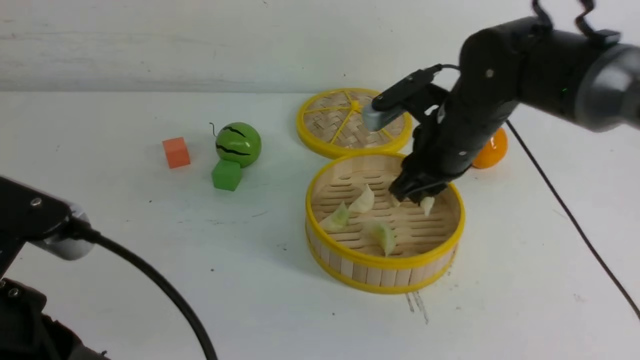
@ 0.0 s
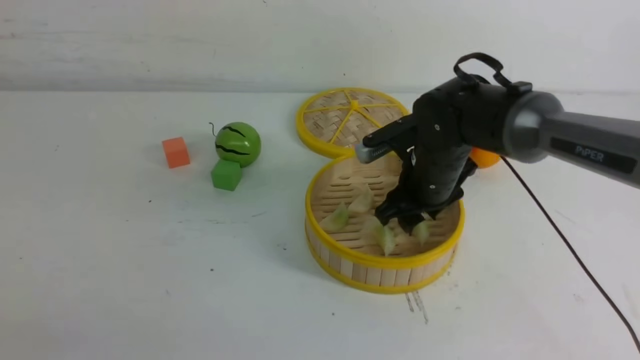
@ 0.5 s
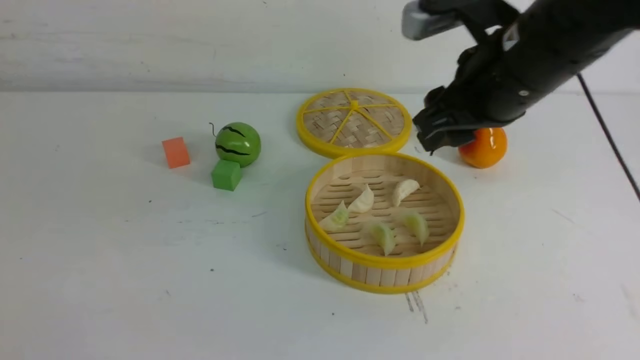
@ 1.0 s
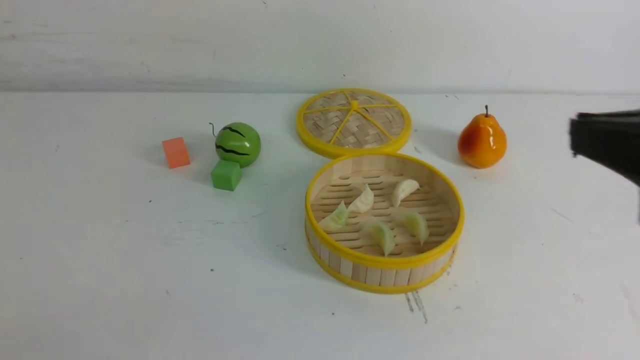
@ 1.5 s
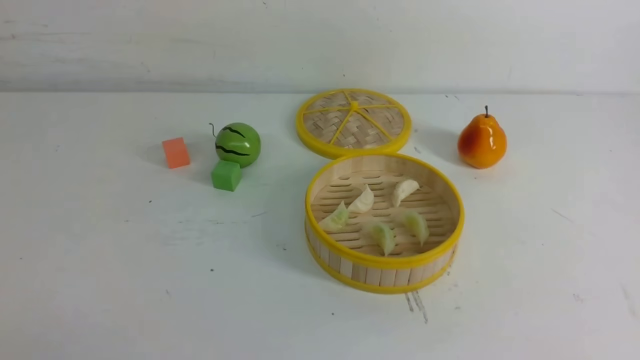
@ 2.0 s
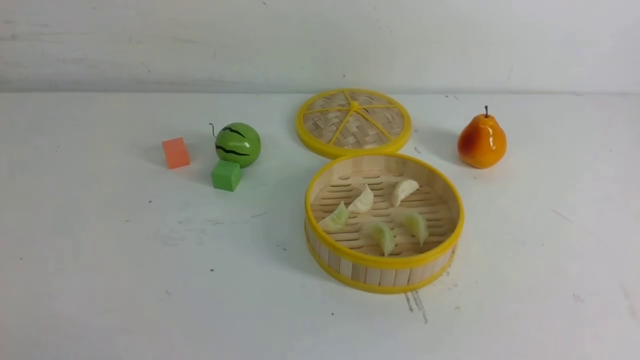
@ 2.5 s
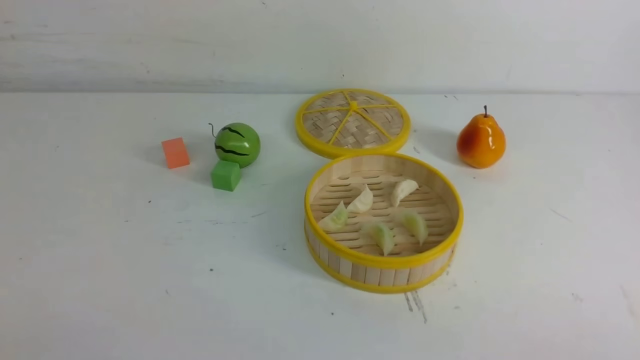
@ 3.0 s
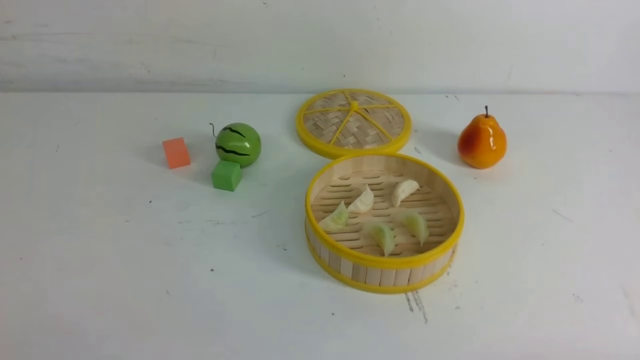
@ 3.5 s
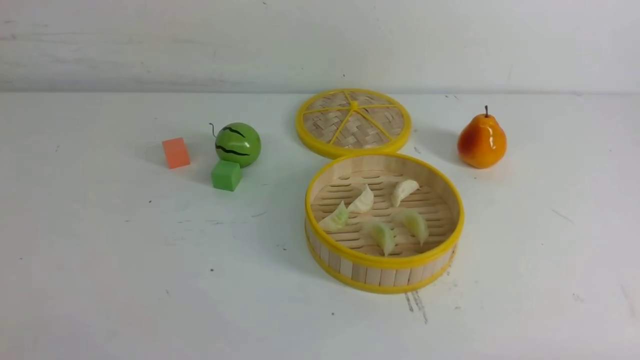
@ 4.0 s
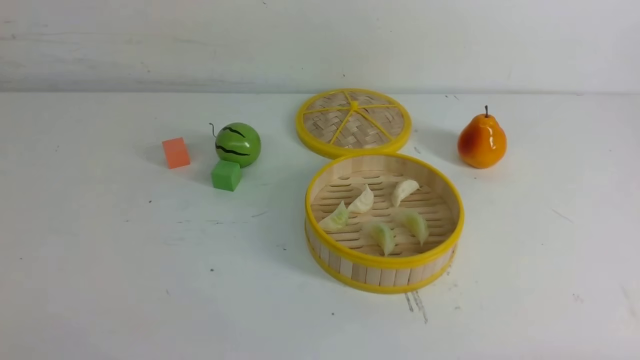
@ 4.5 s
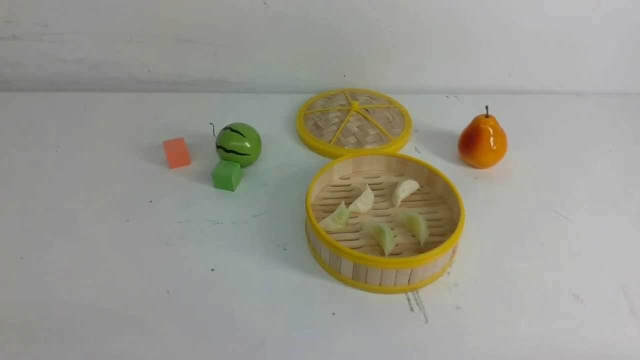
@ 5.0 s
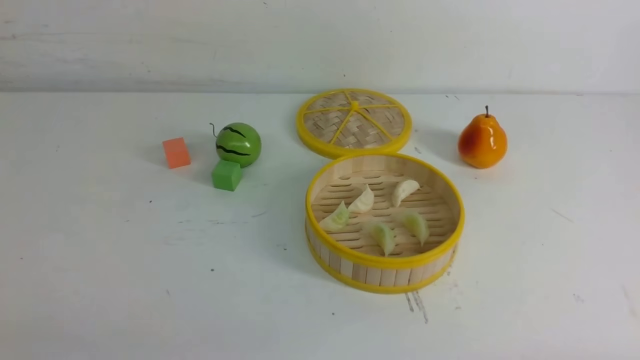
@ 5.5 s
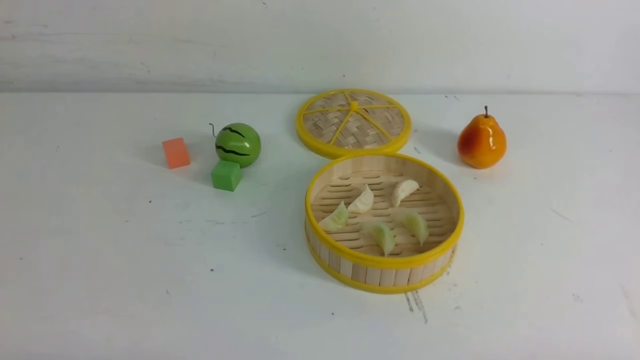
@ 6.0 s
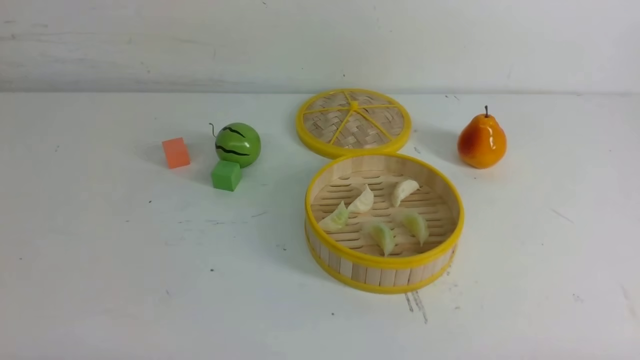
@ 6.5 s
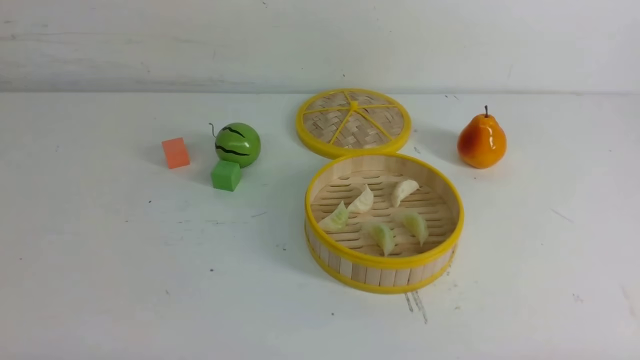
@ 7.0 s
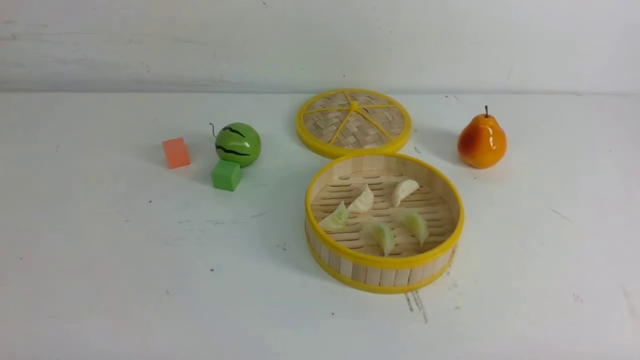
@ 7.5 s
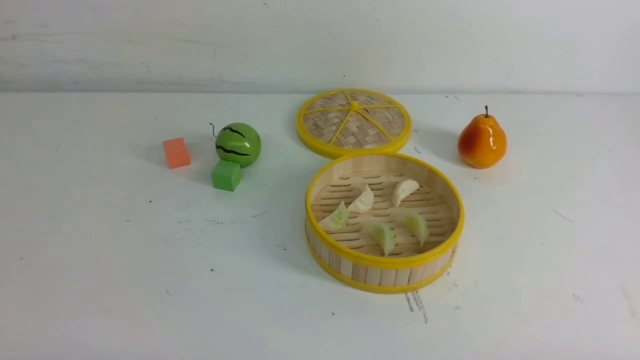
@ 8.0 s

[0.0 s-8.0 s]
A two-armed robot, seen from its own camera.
Task of the whole recording: put the dumplings into the steamer on the white table.
Step, 0.0 to 1.0 s: use the right arm to put the dumpling into the steamer.
0.0 to 2.0 s: The left gripper travels backward and to the left by about 15 cm, while the right gripper heads backward and upward, covering about 35 cm, and closes up.

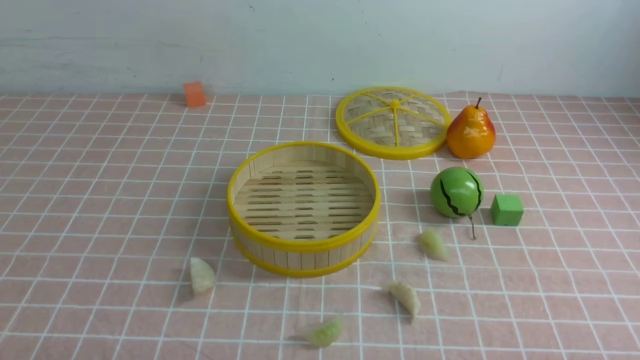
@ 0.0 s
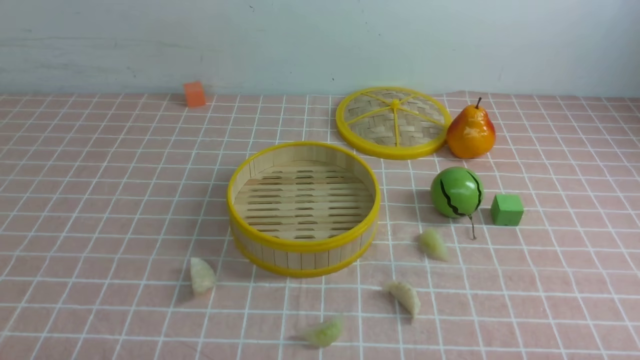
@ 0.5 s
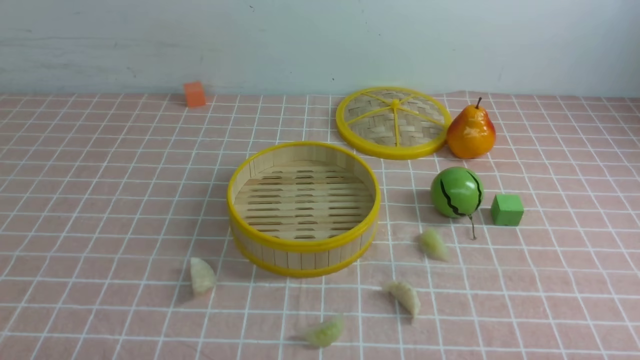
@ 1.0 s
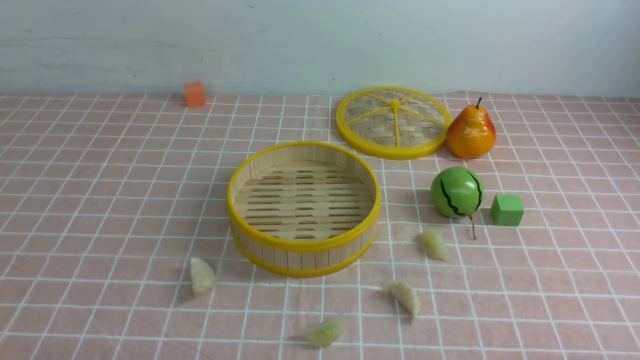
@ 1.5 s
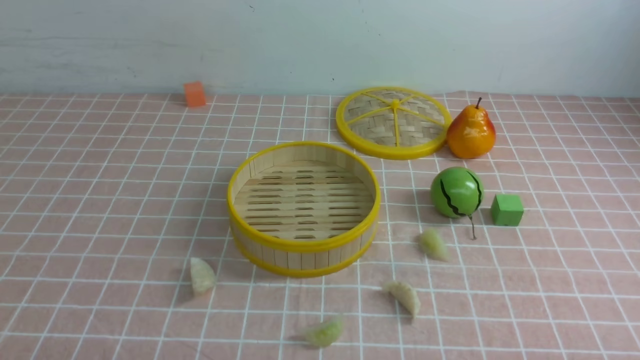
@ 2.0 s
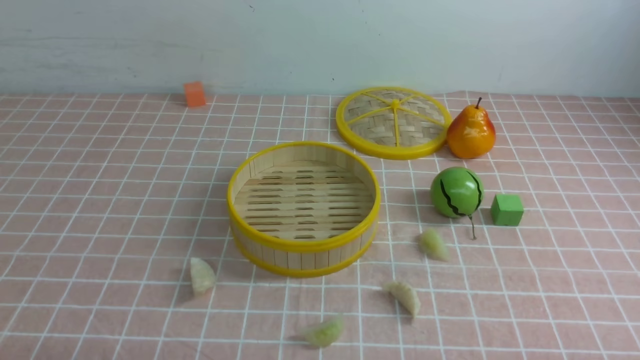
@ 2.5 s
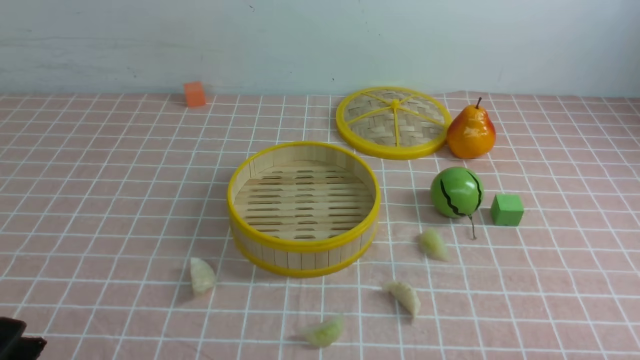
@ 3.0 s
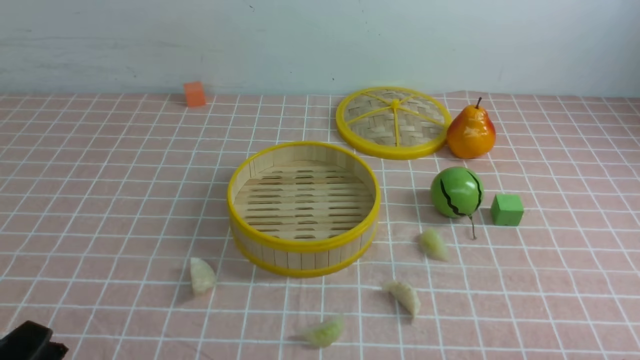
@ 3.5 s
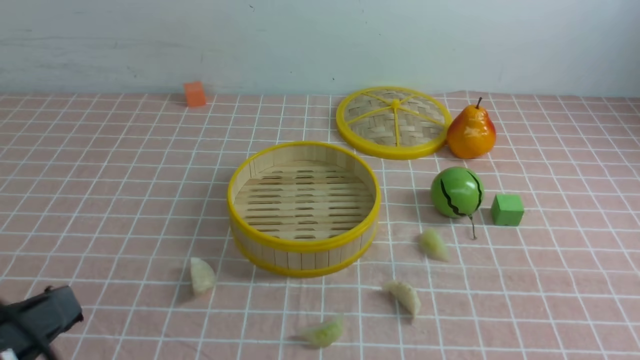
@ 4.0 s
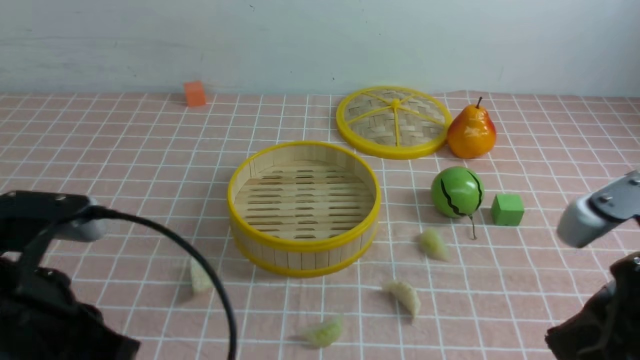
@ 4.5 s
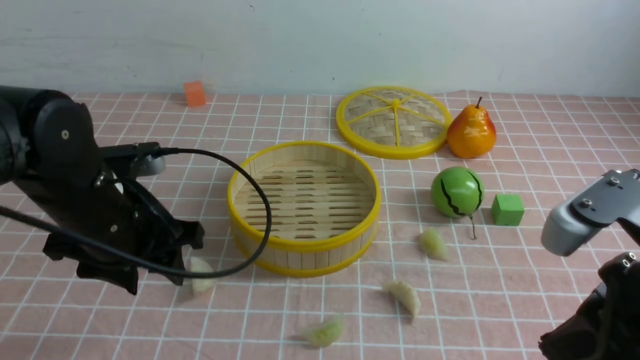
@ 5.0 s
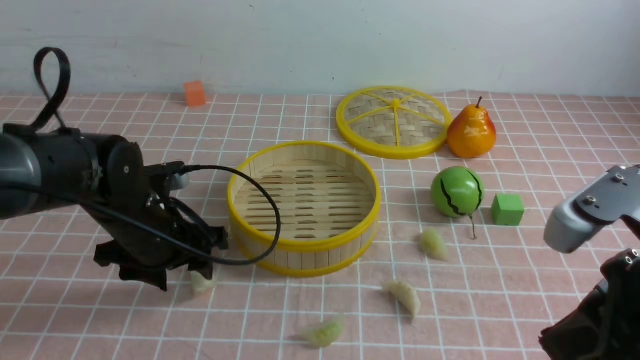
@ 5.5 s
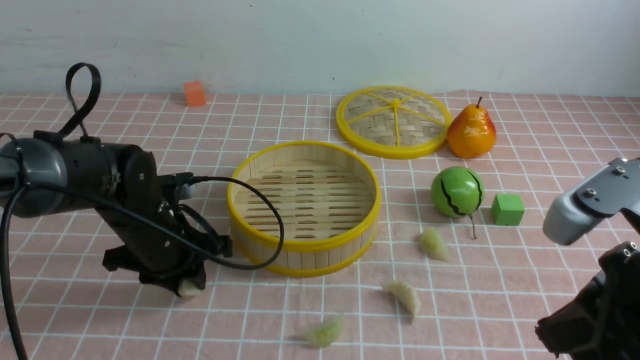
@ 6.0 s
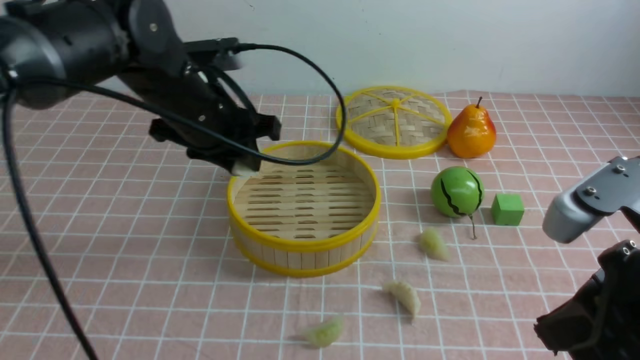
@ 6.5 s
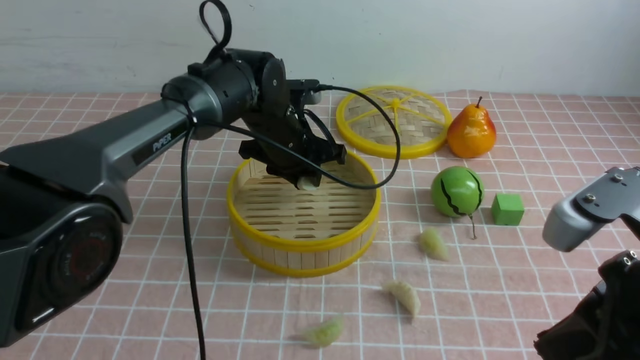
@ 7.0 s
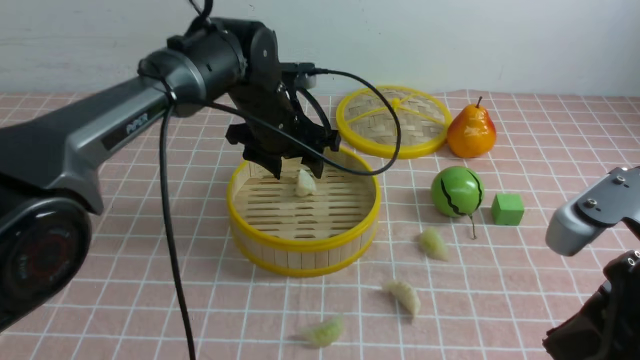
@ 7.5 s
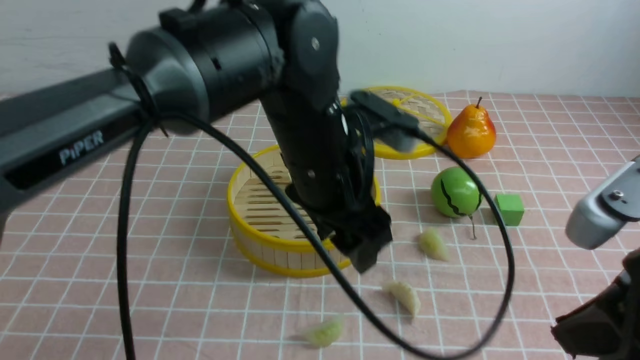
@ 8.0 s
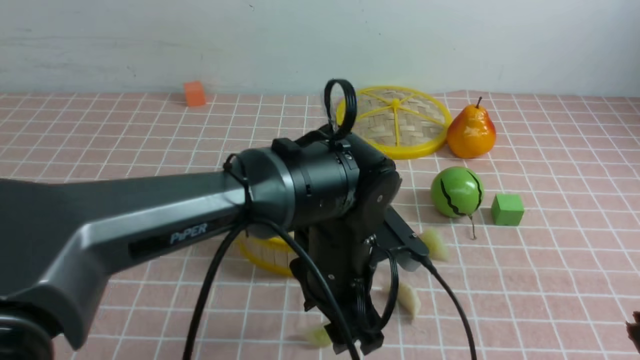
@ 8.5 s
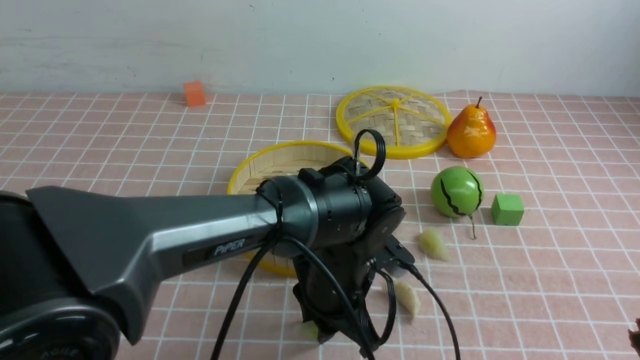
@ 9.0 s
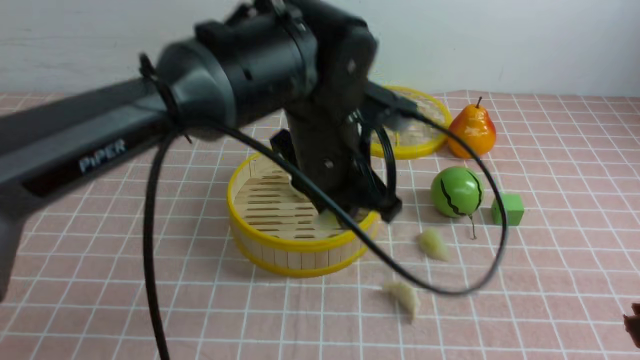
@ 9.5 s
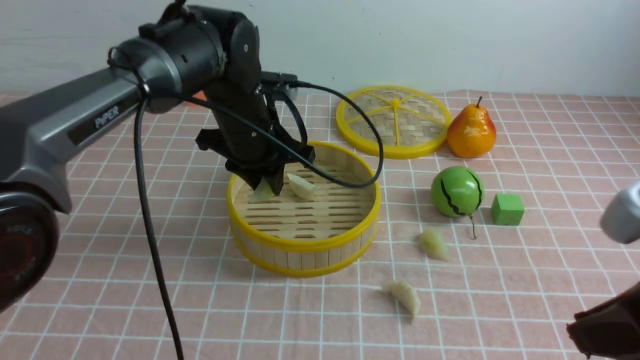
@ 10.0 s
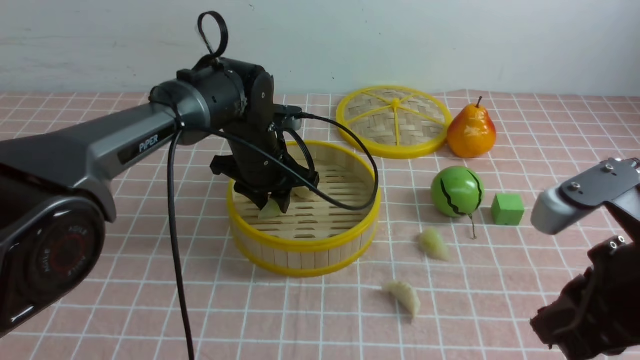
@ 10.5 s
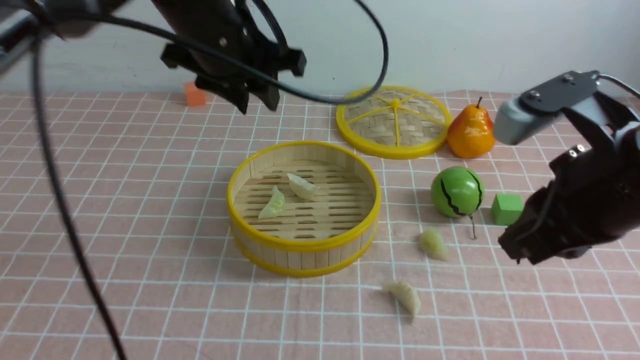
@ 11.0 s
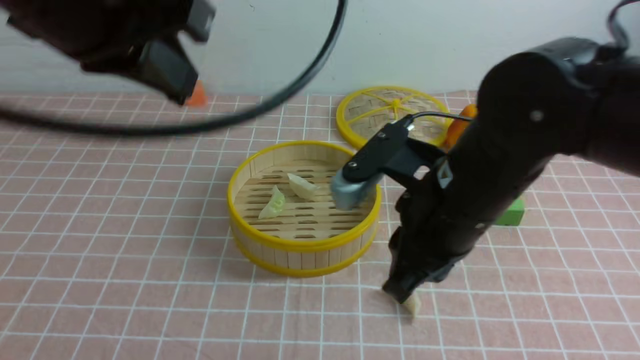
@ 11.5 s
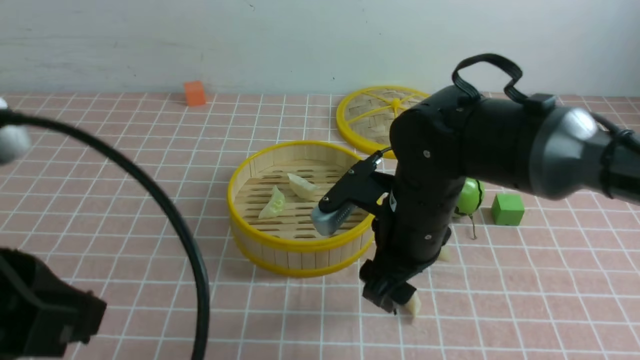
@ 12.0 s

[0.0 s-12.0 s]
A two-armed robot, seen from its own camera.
Task of the whole recording: put the dumplings into the steamer on the table with the pink tablecloth.
Step, 0.0 to 6.0 s: use the left arm to grab a dumpling.
Step, 6.5 to 7.5 s: use the left arm to put the dumpling into the steamer.
Step, 8.0 to 9.0 s: use the left arm to grab a dumpling.
Step, 9.5 to 10.5 s: use the left arm to put the dumpling into the steamer.
0.0 to 2.0 s: Neither gripper changes place.
2.0 to 4.0 s: The left gripper travels upward by approximately 10 cm, and closes up.
4.0 to 6.0 s: The right gripper goes about 10 cm forward and to the left. Meanwhile the left gripper moves forward, some 25 cm, and opens its fingers.
6.0 to 8.0 s: The left gripper moves to the right and upward, roughly 20 cm, and opens up.
8.0 to 10.0 s: The left gripper moves forward and to the left, some 15 cm, and closes.
10.0 to 12.0 s: The left gripper goes roughly 30 cm backward, and closes up, while the right gripper is displaced forward, to the left and downward by roughly 25 cm, and opens up.
